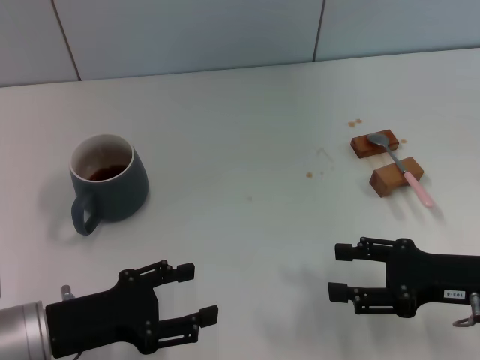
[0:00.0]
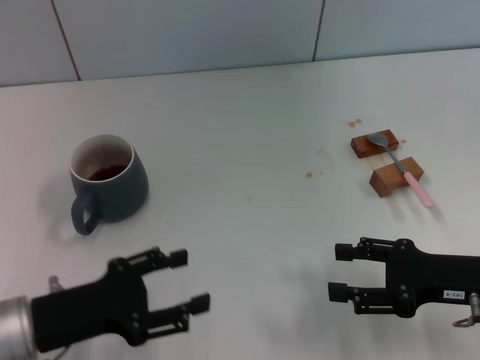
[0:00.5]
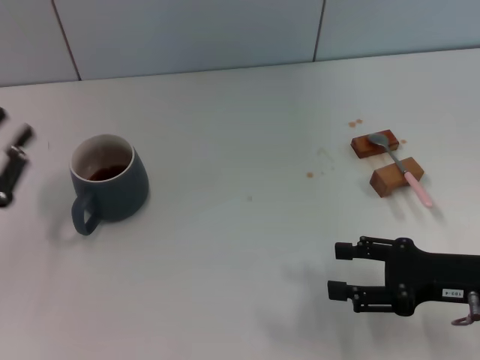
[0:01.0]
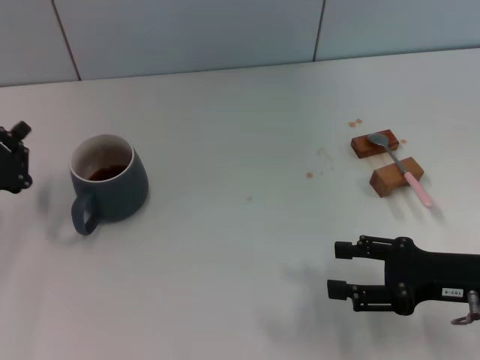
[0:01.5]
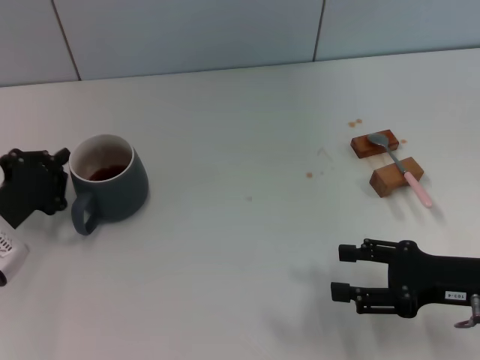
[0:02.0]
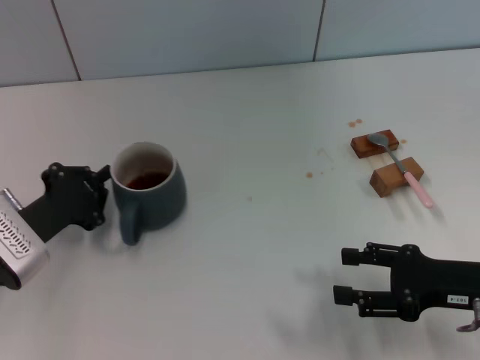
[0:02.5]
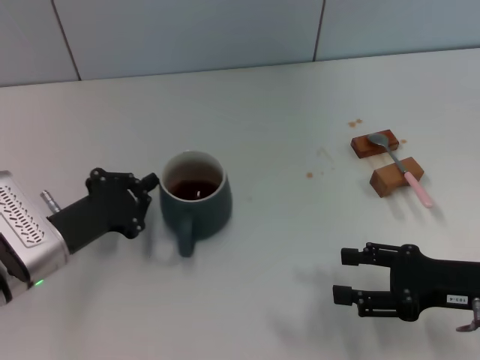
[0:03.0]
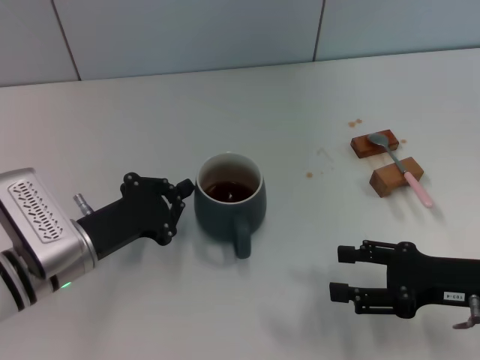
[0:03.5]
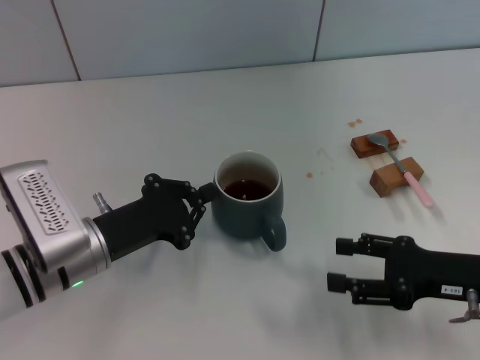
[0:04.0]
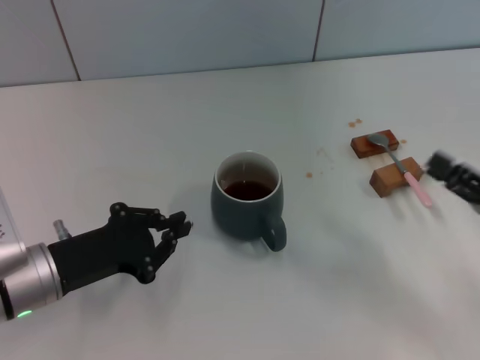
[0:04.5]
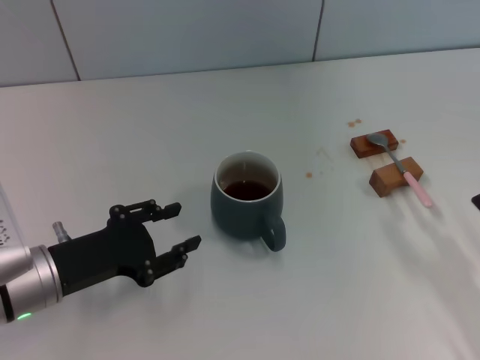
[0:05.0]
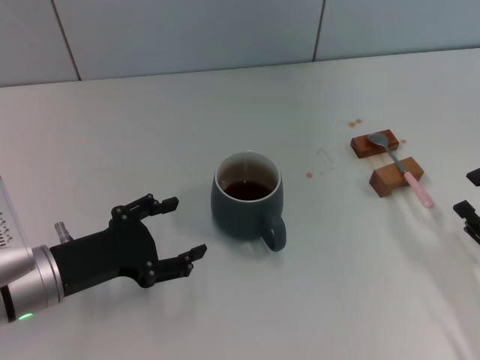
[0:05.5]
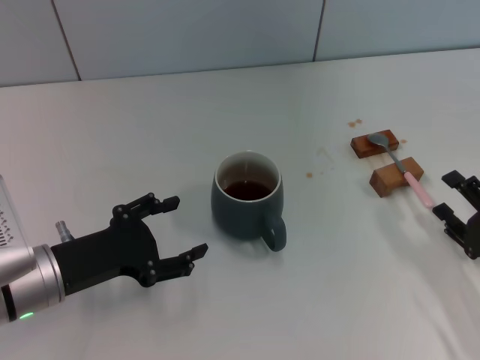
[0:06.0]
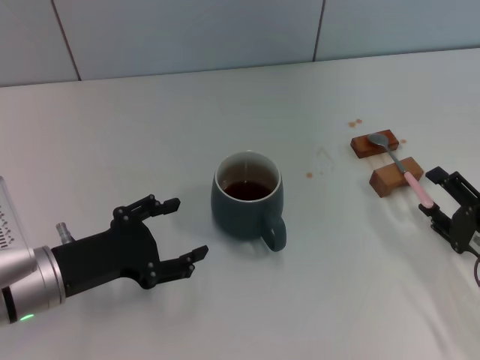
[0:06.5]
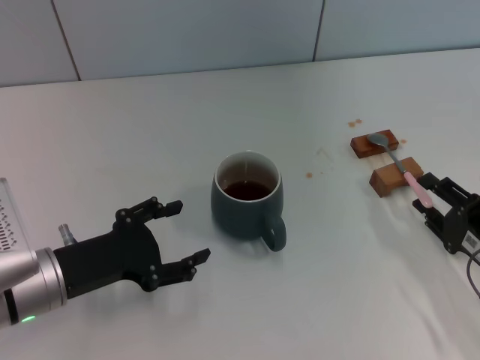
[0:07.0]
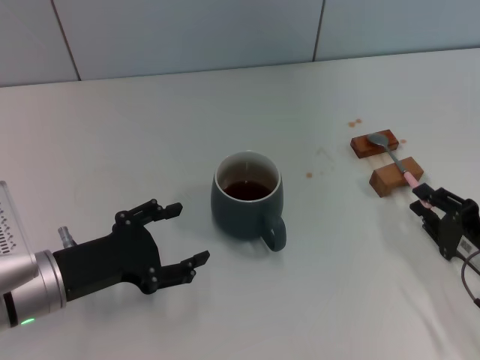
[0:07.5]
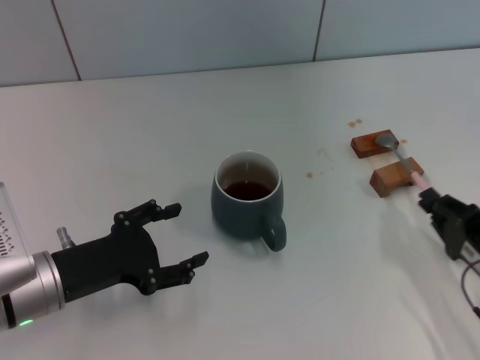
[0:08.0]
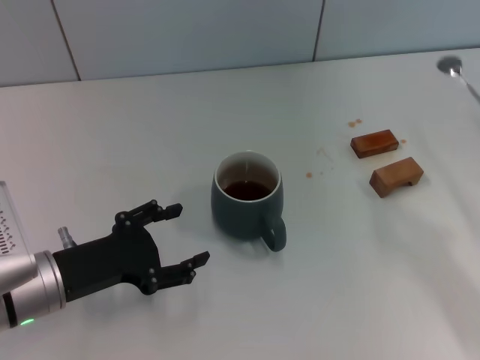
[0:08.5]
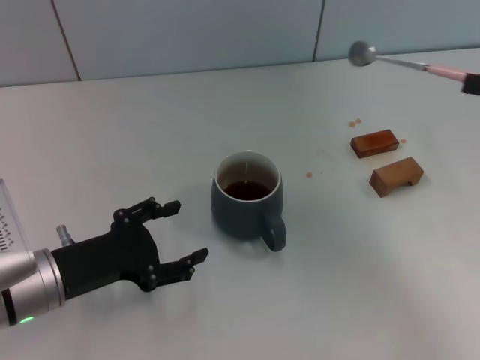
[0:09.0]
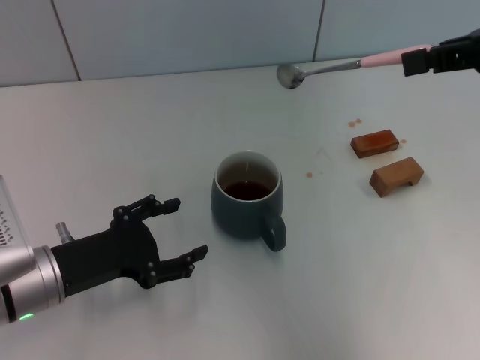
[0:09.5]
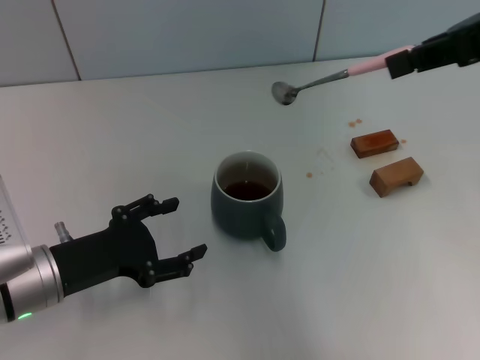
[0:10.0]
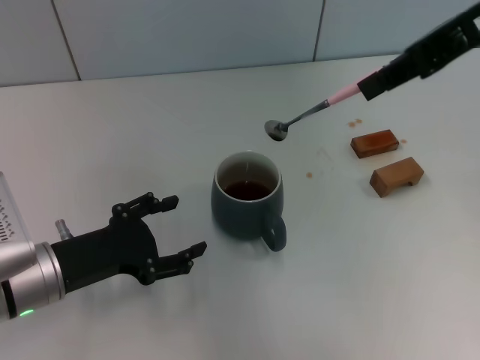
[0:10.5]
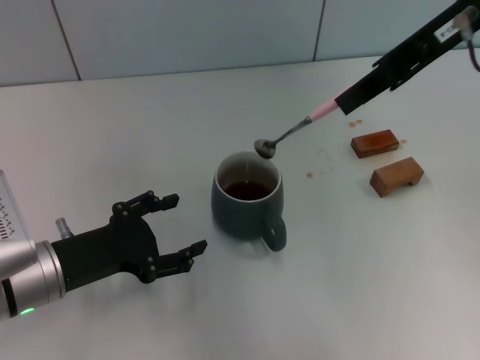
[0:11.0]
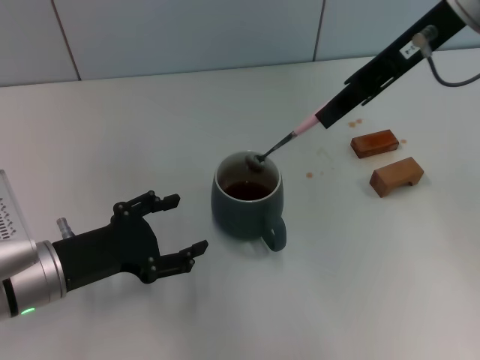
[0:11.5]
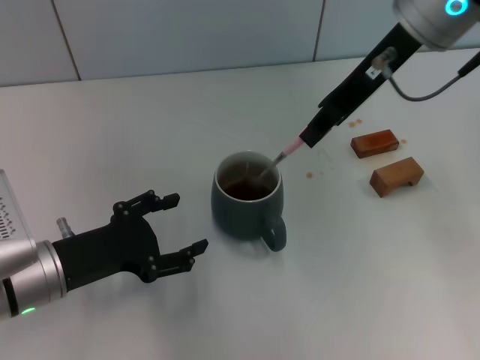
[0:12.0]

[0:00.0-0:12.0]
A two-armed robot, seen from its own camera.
Task of the whole recording: Move the grey cup to the center, lift the pink spoon, stir it three times in the cup, and put the spoon into the cup.
Step, 0:00.0 to 0:04.0: Move the cup with coffee to the center of view with the left gripper.
Step, 0:04.5 to 0:08.0: Pick up the spoon with the right gripper.
0:00.0 to 0:02.0: The left gripper goes roughly 10 cm forward and to the left, and closes up.
0:02.0 to 0:04.0: The left gripper heads to the right, covering some 10 cm.
0:04.0 to 0:06.0: The right gripper travels downward by some 5 cm, while the left gripper opens up.
0:06.0 to 0:08.0: The right gripper closes its fingers.
0:08.0 to 0:10.0: The right gripper is displaced upward by some 35 cm.
0:10.0 to 0:12.0: The right gripper moves to the left, forward and downward, approximately 15 cm.

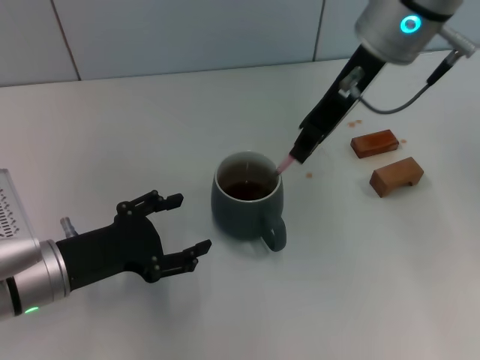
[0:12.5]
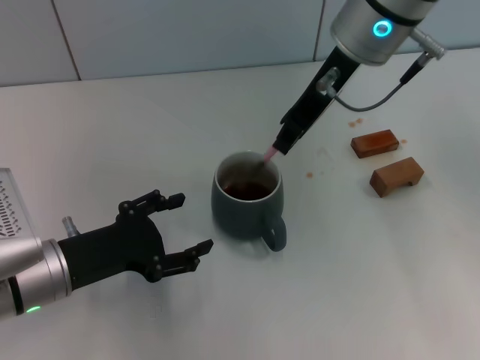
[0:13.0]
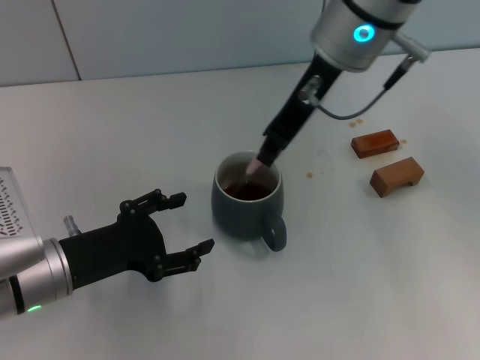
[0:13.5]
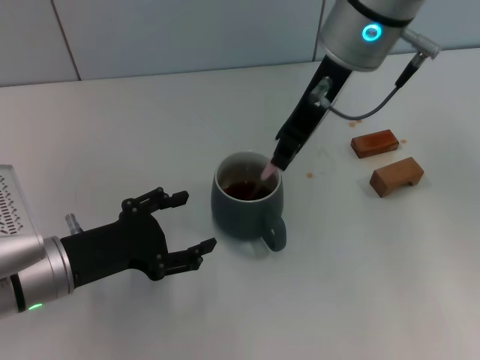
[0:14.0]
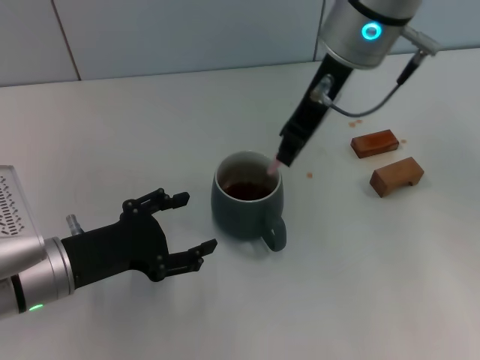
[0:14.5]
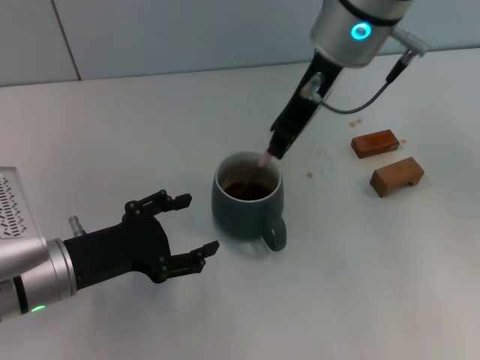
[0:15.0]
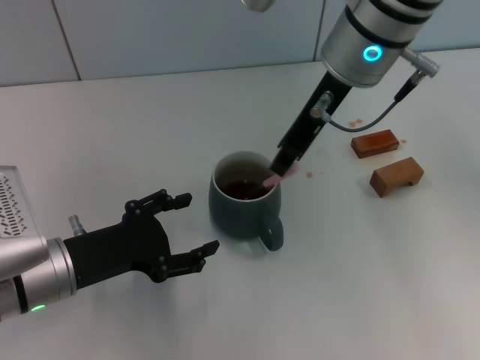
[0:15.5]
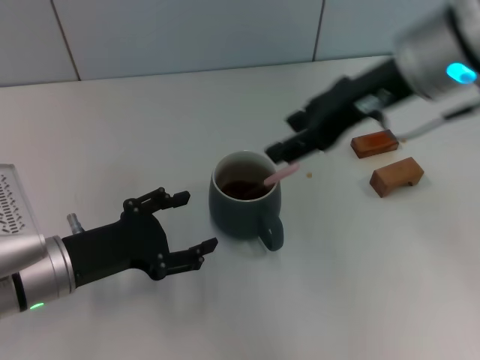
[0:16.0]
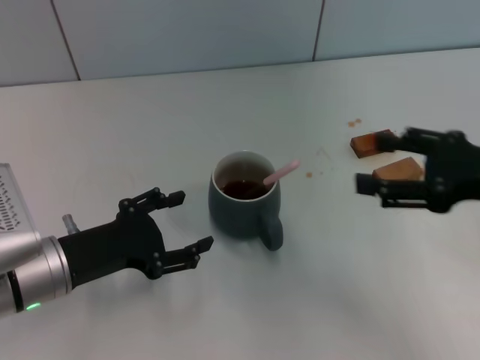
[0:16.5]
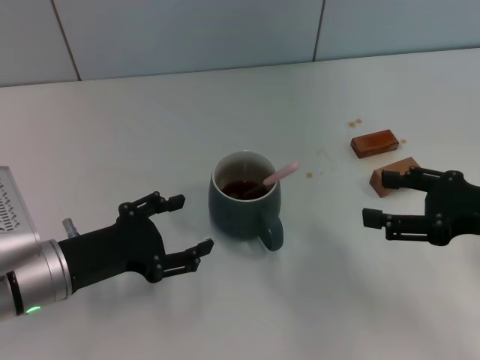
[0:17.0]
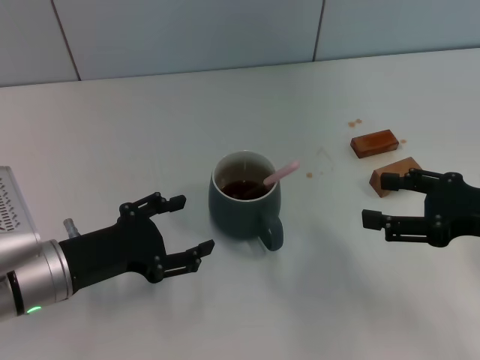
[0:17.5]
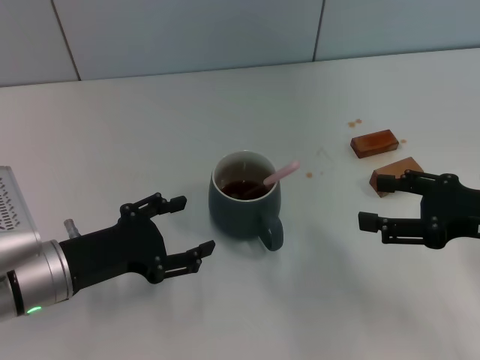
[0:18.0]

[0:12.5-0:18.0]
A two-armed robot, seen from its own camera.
Task of the whole recording: Move the grey cup to the center, lift the pink spoon, stir it three times in the cup, and put the spoon into the cup.
Step, 0:12.5 to 0:15.5: Stir the coffee in the cup with the right gripper.
0:12.5 to 0:14.5: The grippers move only a little.
0:14.5 to 0:16.0: The right gripper travels to the right and backward by roughly 10 cm, and opens up.
0:16.0 to 0:18.0: The right gripper travels downward, to the right and backward by about 20 cm, and opens.
